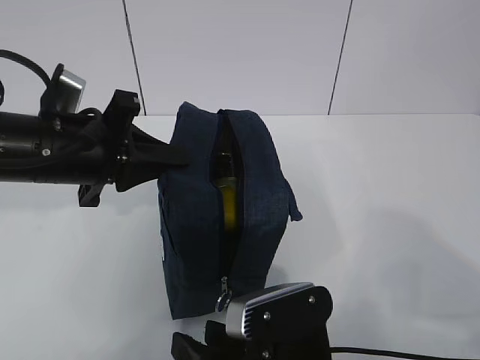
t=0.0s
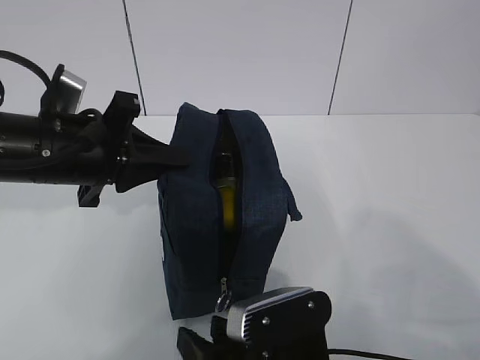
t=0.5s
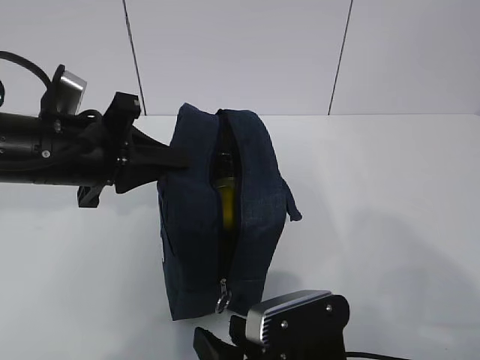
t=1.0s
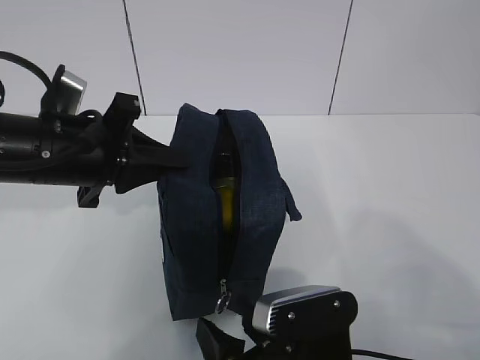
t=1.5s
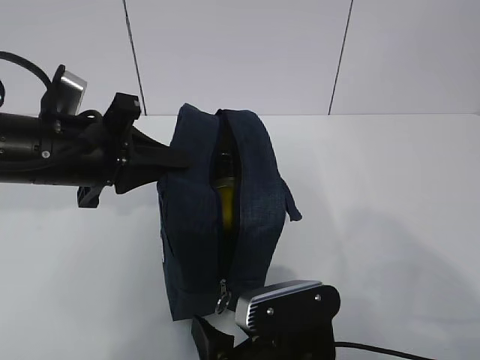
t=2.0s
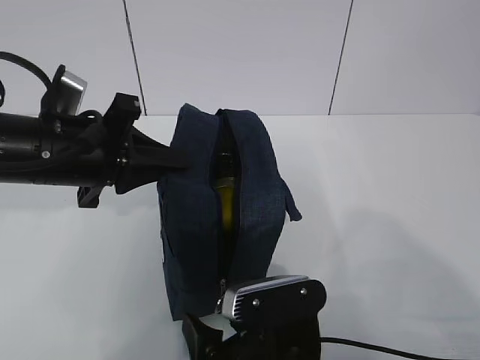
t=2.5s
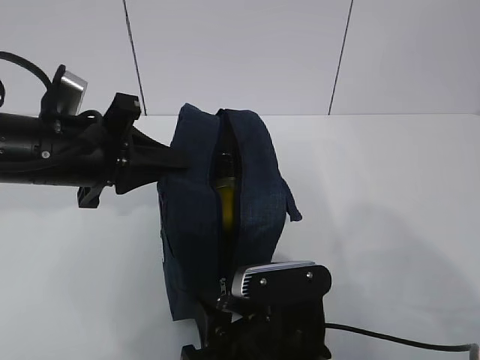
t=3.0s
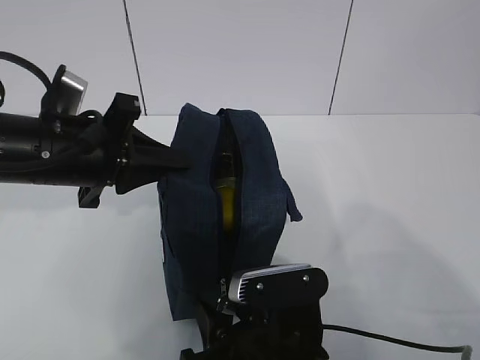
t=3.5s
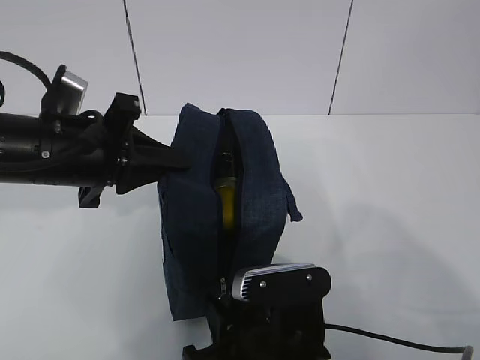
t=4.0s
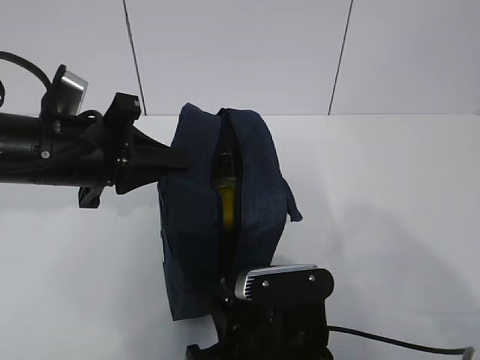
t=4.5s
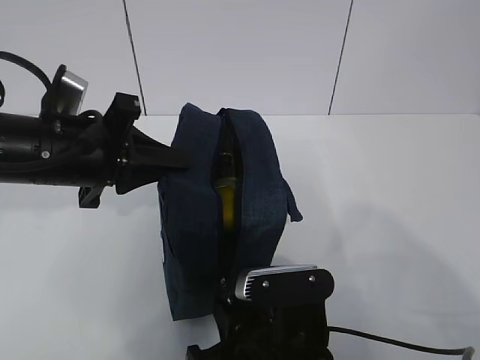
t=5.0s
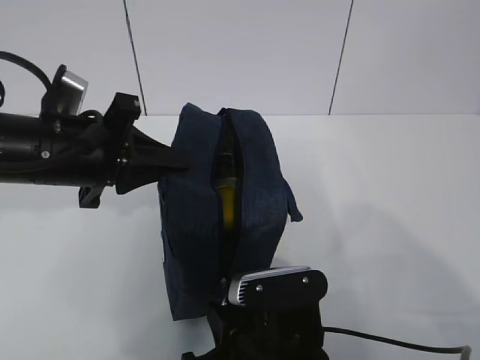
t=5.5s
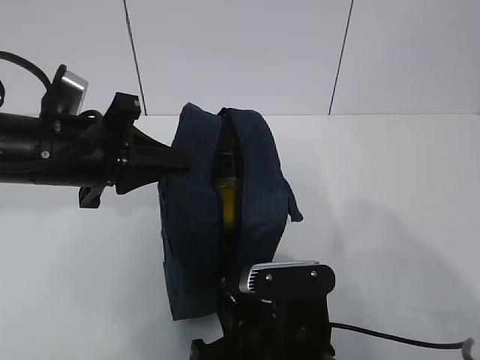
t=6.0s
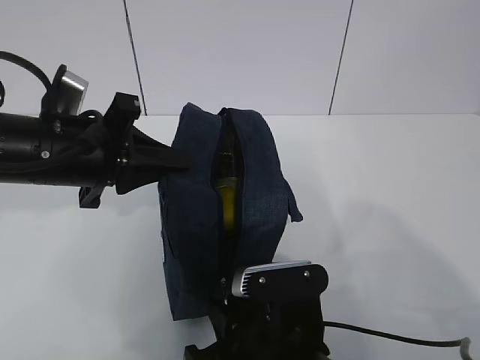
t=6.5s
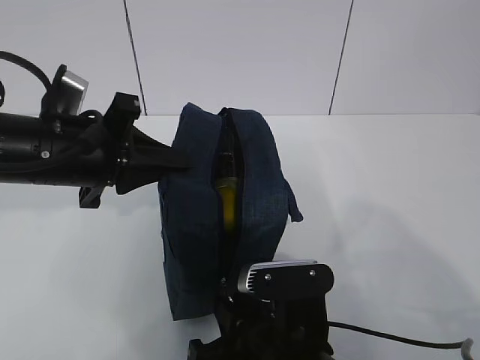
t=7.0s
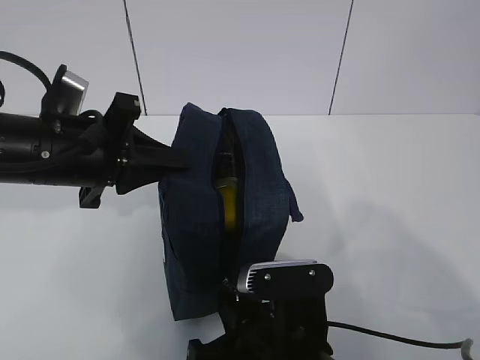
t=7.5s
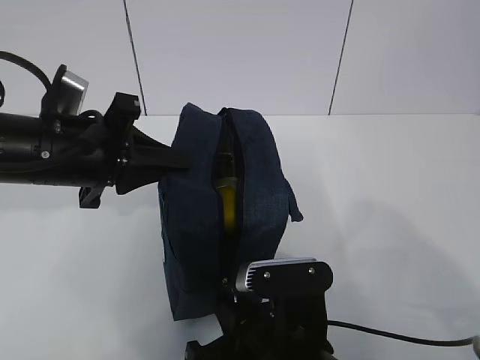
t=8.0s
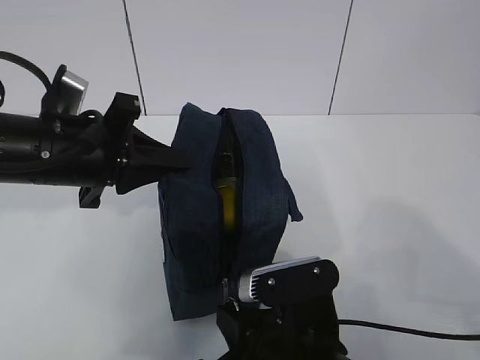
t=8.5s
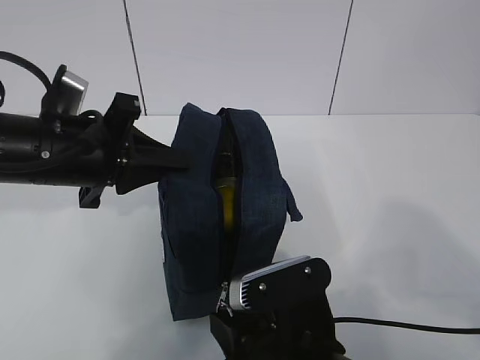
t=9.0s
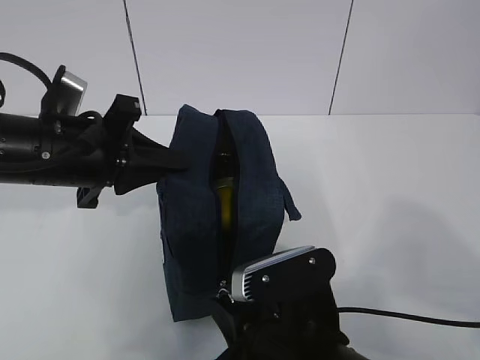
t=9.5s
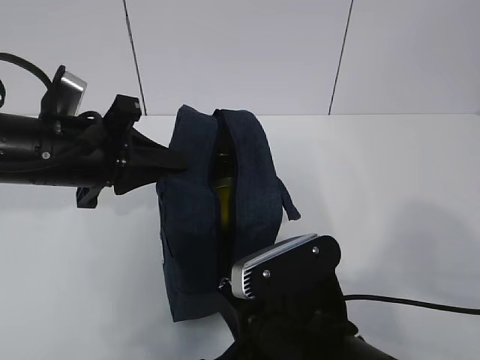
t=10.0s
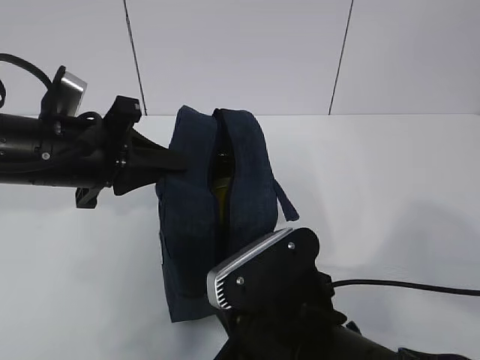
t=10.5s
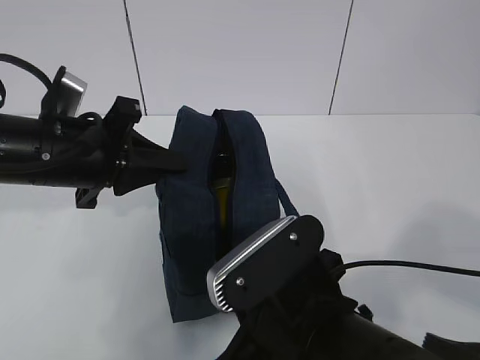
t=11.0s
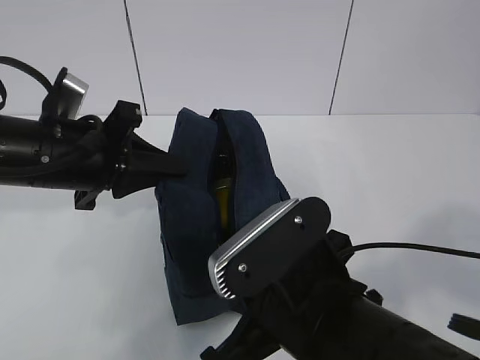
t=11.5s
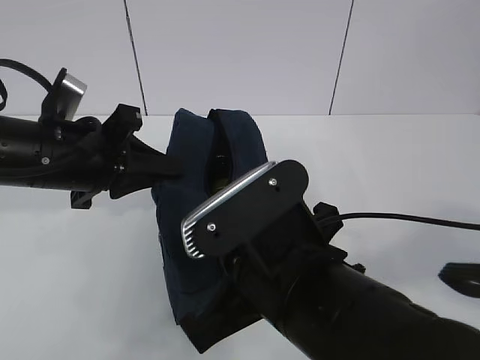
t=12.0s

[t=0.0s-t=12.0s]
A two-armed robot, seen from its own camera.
t=0.0s to t=4.0s: The grippers stay close to where they were, moving slightly.
t=4.0s to t=8.0s: Both grippers stay put.
t=8.0s to t=10.0s: The right gripper shifts by roughly 5 cm.
t=10.0s to t=12.0s: The right gripper is displaced upward by about 5 cm.

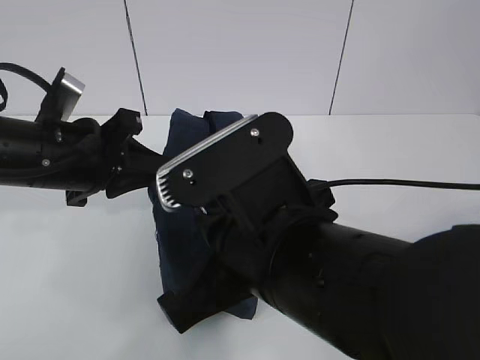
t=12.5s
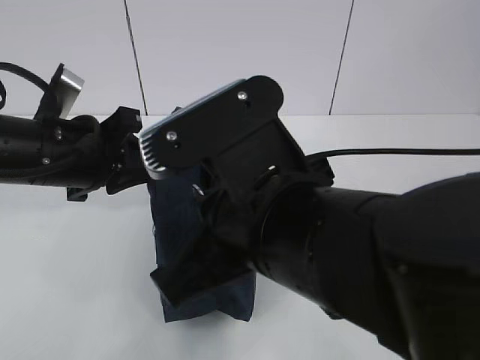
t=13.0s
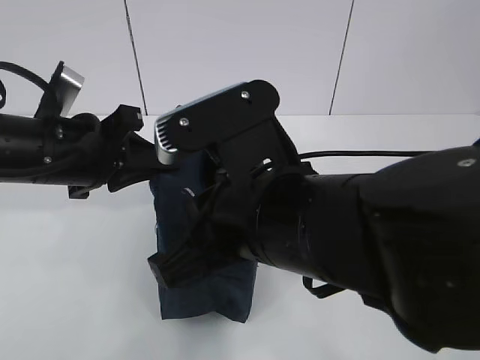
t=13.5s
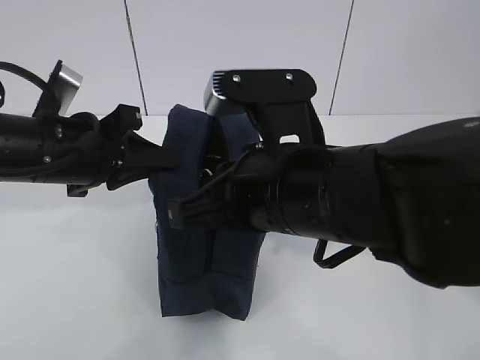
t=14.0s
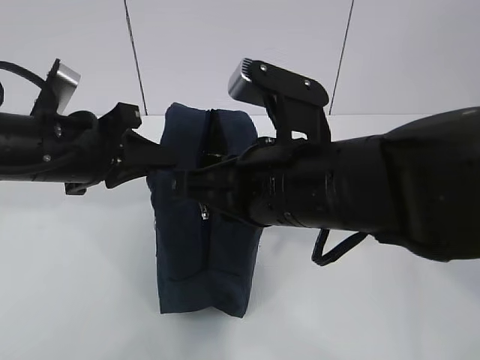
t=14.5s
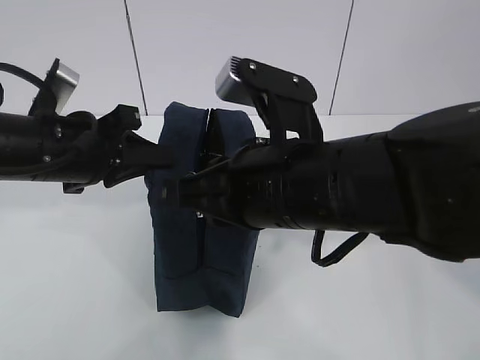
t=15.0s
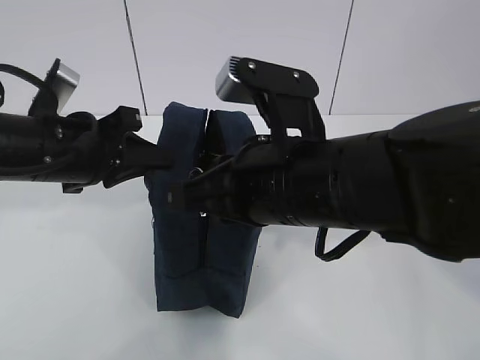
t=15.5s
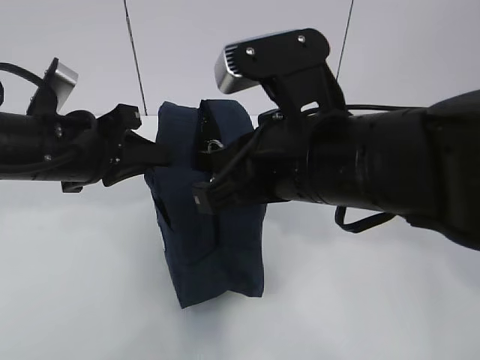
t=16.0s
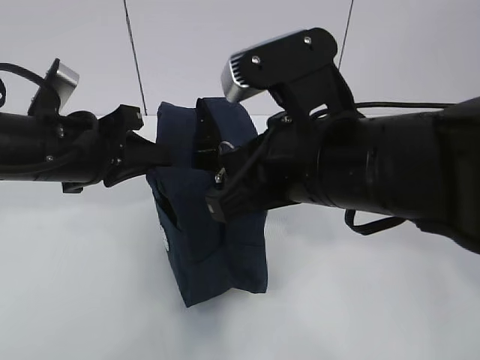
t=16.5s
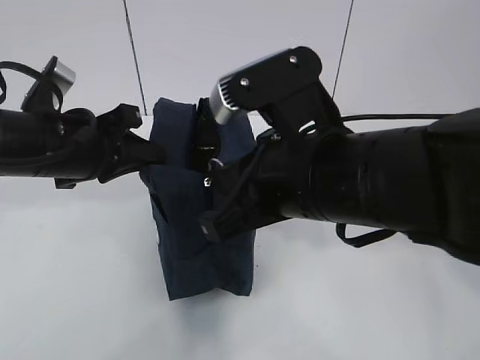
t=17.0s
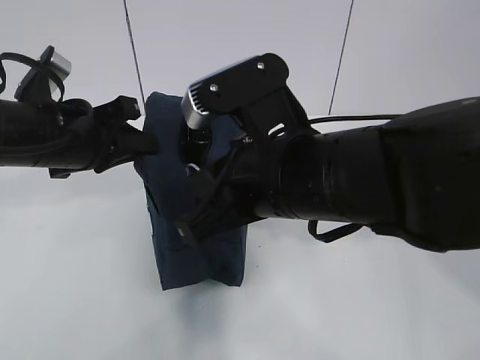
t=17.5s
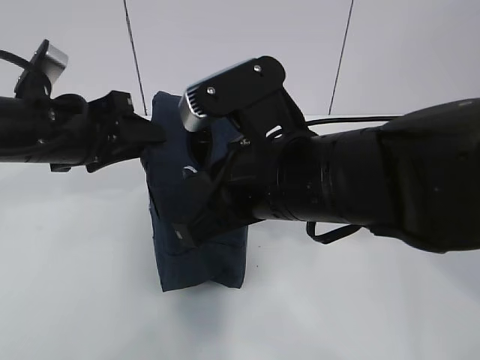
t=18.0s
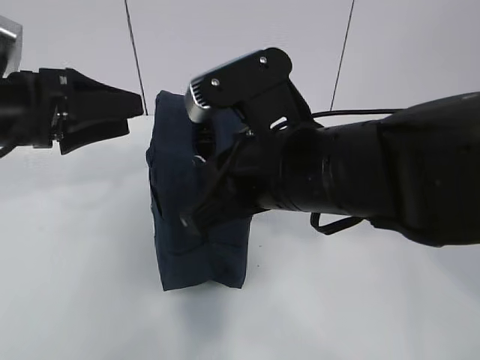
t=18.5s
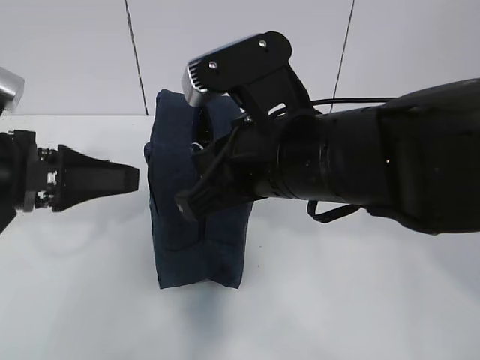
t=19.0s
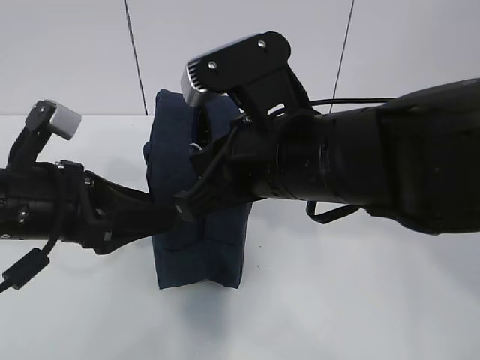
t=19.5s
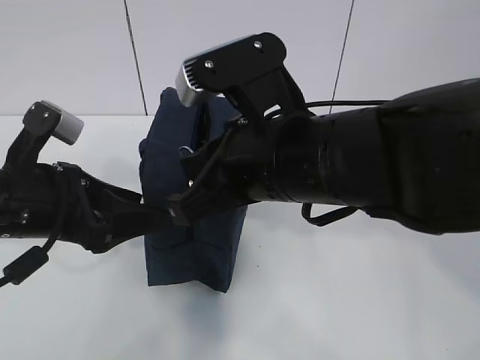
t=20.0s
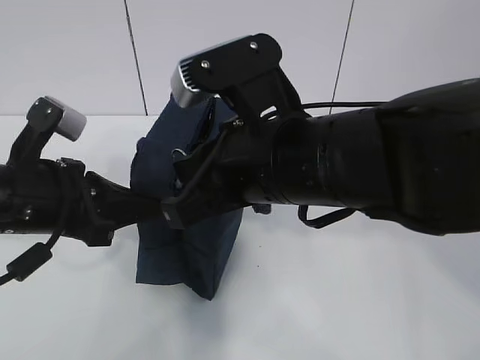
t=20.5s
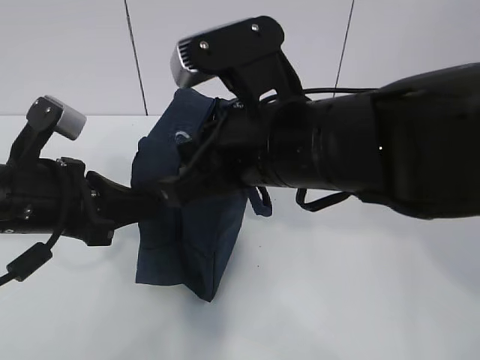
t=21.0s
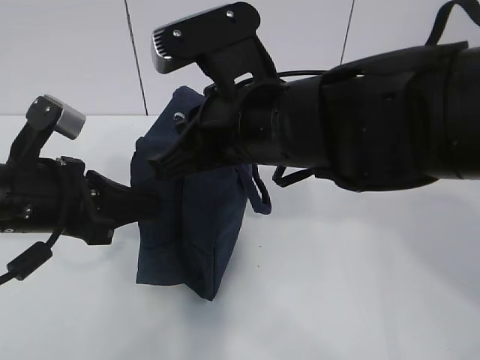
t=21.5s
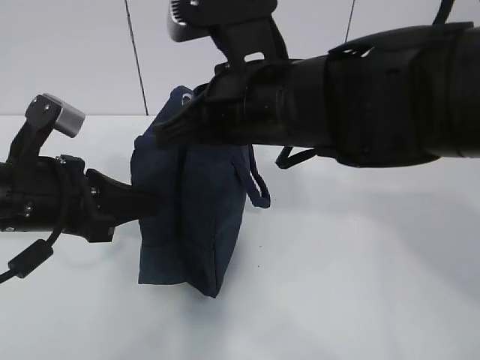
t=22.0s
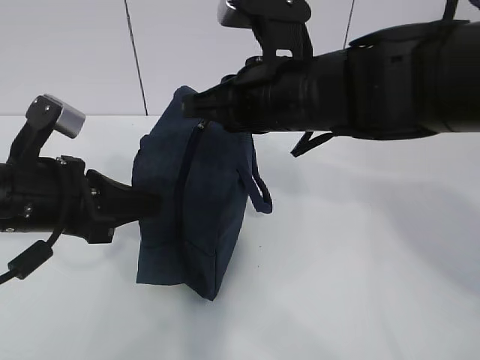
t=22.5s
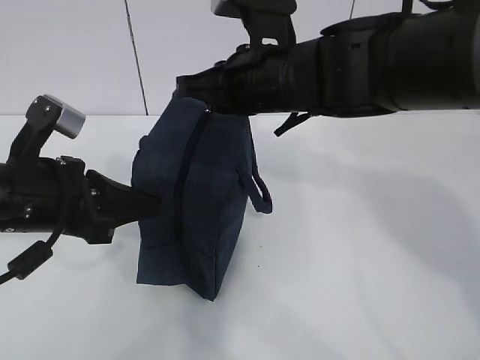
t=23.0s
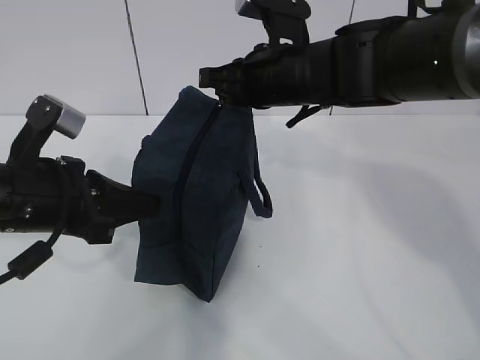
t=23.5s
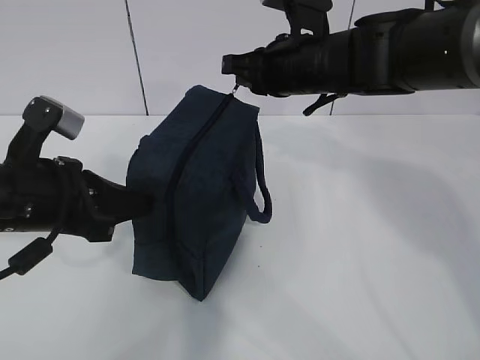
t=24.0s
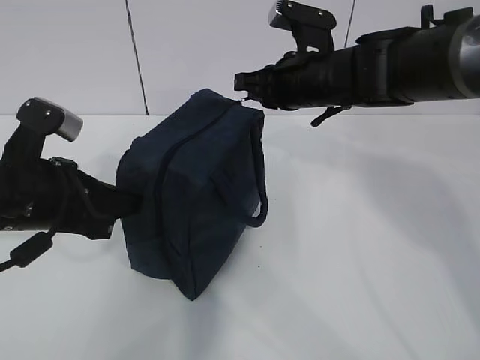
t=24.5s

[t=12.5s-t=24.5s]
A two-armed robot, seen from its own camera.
Step, t=12.5s to t=18.5s: Pull the zipper with your right hand.
t=12.5s to t=14.5s: The right gripper goes about 5 cm forward.
t=16.5s to t=18.5s: The left gripper shifts by approximately 5 cm, and opens its fingers.
t=18.5s to t=20.5s: The left gripper is displaced backward by approximately 5 cm, and closes.
t=20.5s to t=22.5s: The right gripper is displaced forward by some 10 cm.
t=22.5s to t=24.5s: The right gripper goes approximately 10 cm forward and to the right.

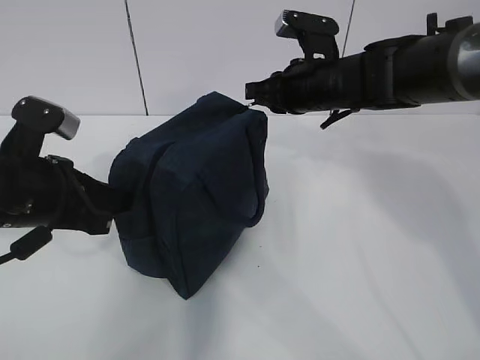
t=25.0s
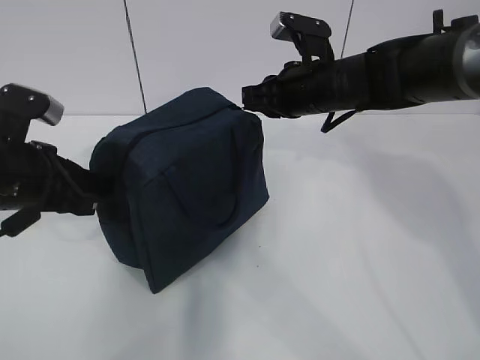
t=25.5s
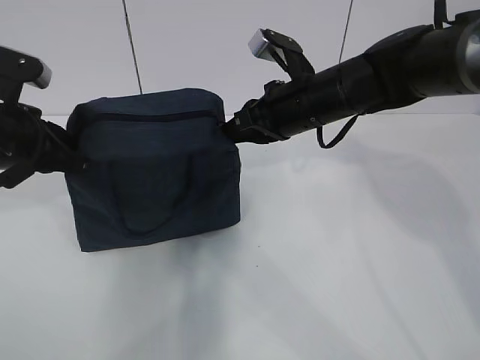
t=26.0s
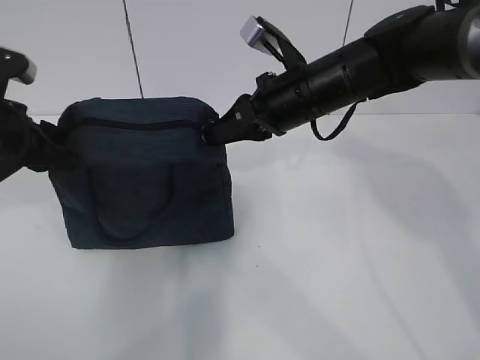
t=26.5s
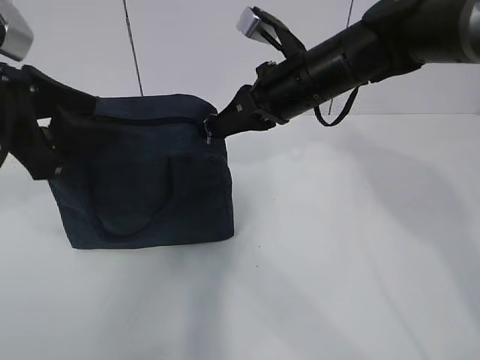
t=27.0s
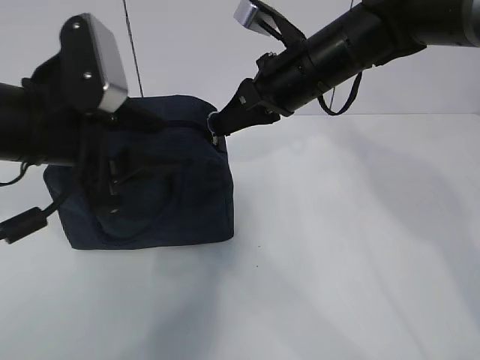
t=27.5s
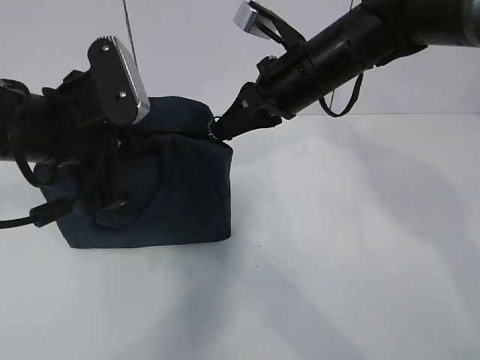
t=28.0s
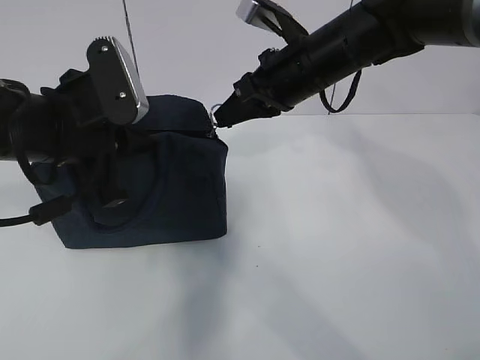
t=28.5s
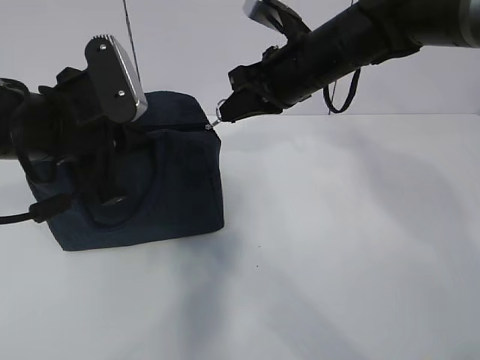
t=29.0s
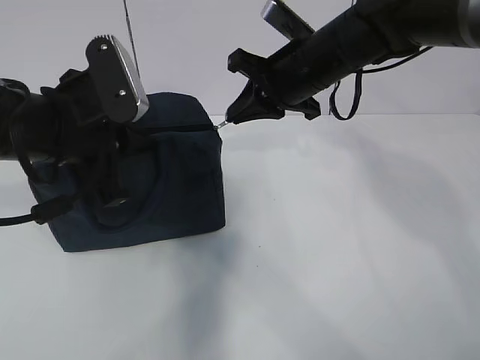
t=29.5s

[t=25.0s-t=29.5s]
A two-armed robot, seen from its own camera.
t=25.0s to t=27.0s: The left gripper goes approximately 10 cm upward, and opens up; the right gripper moves some 5 cm.
t=27.0s to t=29.5s: The left gripper goes roughly 5 cm to the right, and closes its fingers.
